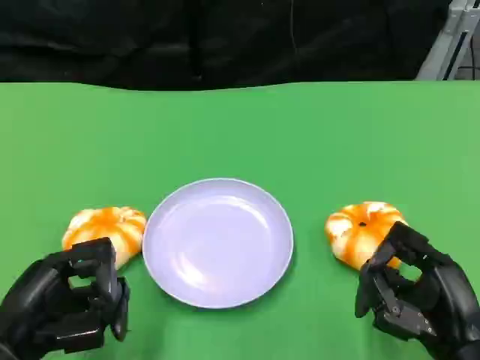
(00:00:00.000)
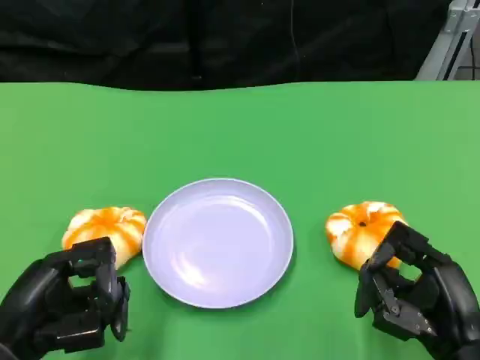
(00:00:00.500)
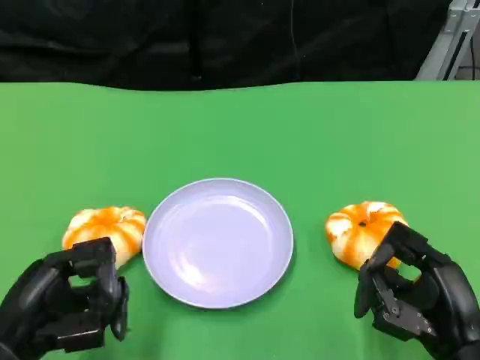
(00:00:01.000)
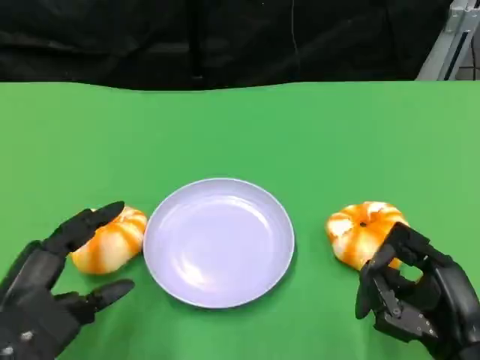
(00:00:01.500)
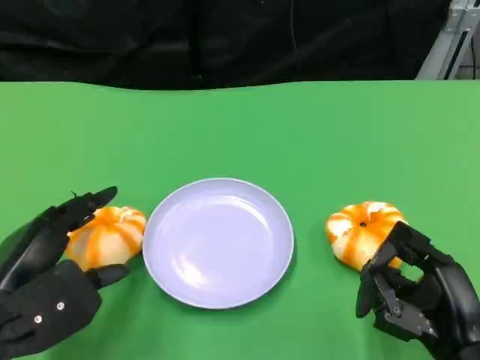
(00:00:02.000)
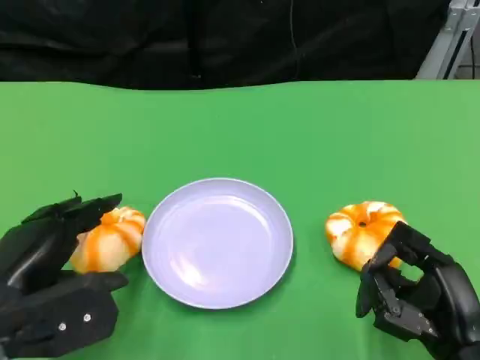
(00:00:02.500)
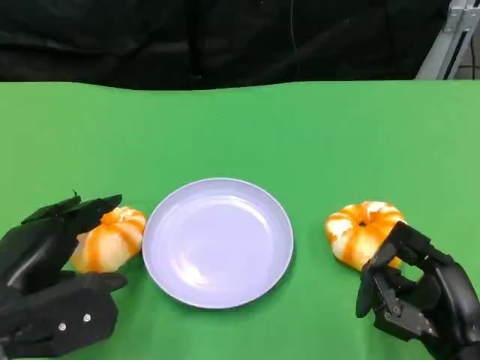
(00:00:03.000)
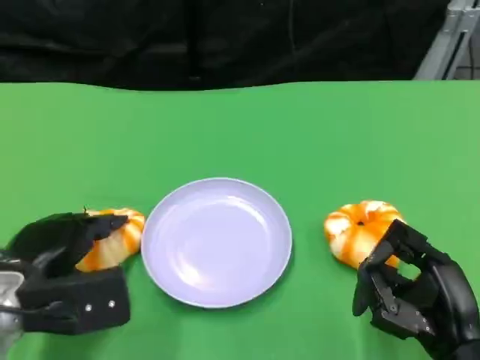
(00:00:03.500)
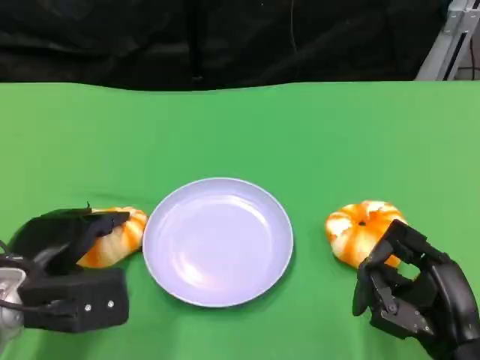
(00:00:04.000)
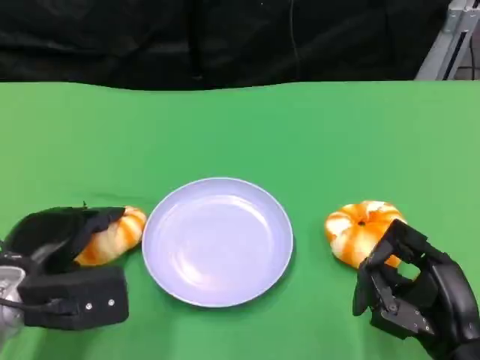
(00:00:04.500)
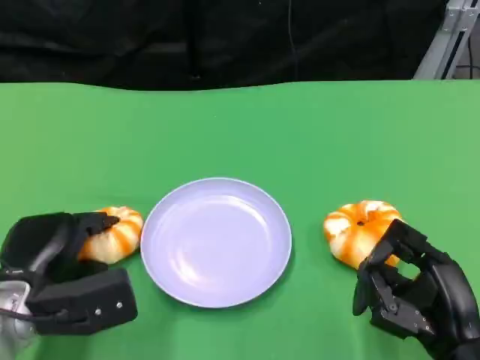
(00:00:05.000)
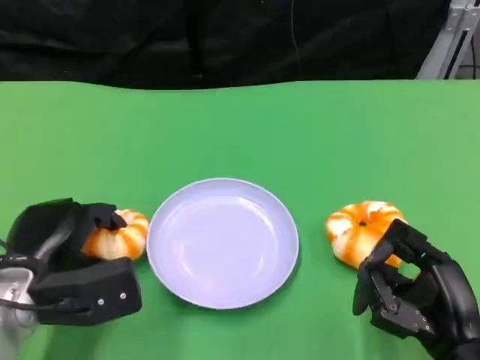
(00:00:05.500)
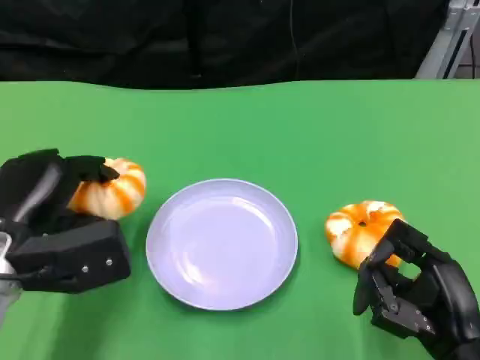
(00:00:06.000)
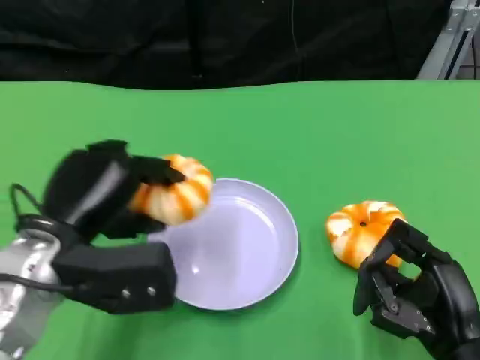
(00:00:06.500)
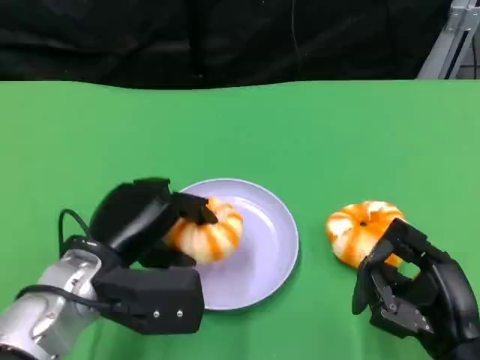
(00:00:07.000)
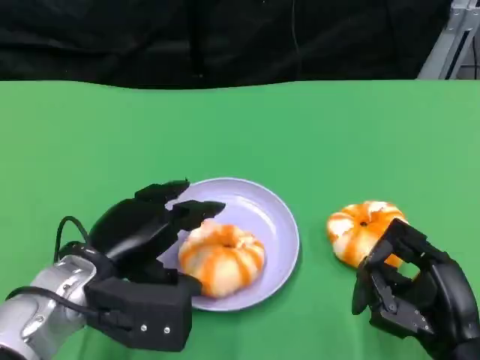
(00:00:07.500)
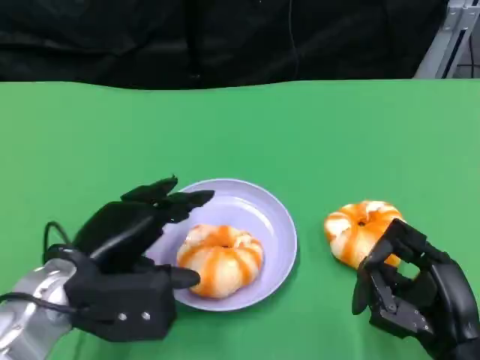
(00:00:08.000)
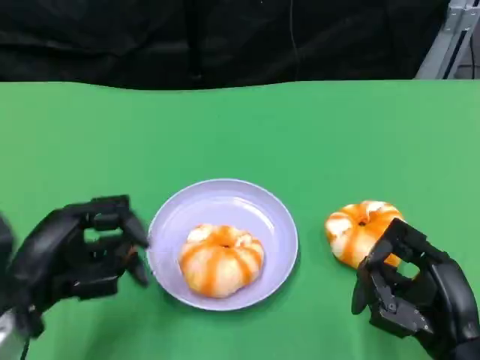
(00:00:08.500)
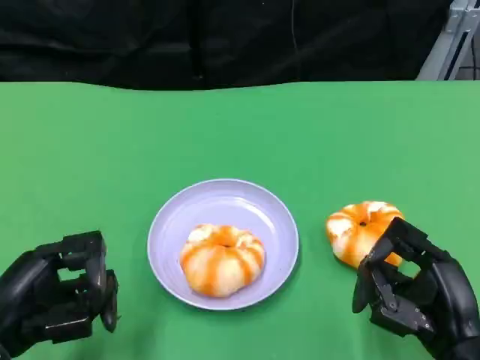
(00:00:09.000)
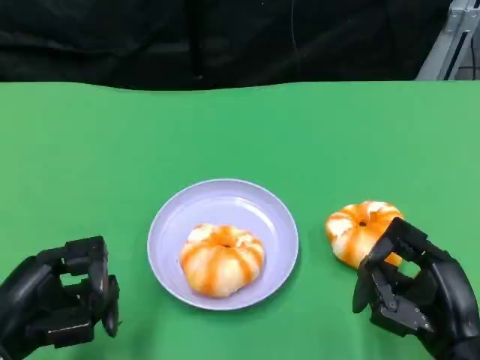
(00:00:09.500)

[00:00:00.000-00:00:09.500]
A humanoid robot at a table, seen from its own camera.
Task of the whole recording: Grasp the bread from the table and place it into the plate.
00:00:02.000 to 00:00:04.000: The left hand shifts some 5 cm forward.
00:00:04.000 to 00:00:05.500: The hands move only a little.
00:00:05.500 to 00:00:07.500: The left hand travels to the right by roughly 5 cm.
00:00:07.500 to 00:00:09.500: The left hand is displaced to the left and backward by about 10 cm.

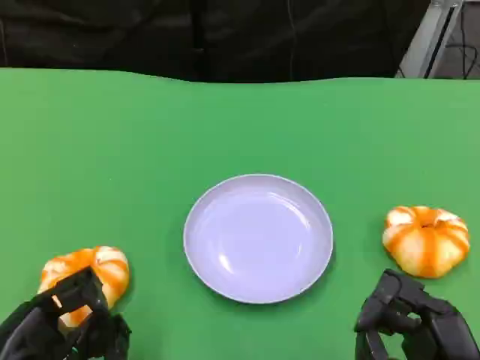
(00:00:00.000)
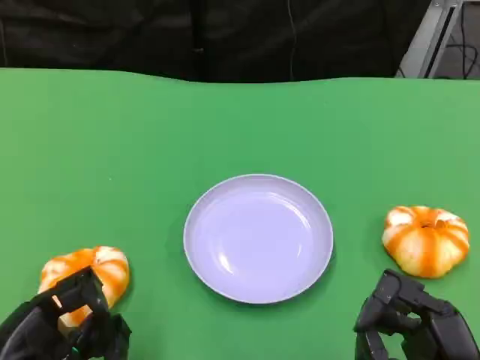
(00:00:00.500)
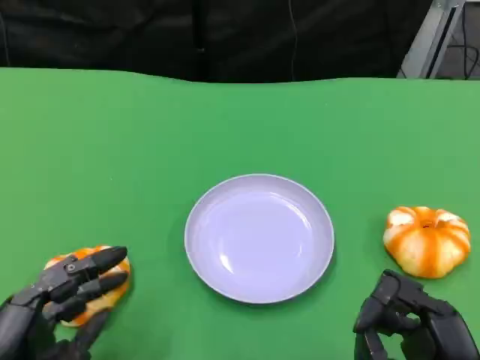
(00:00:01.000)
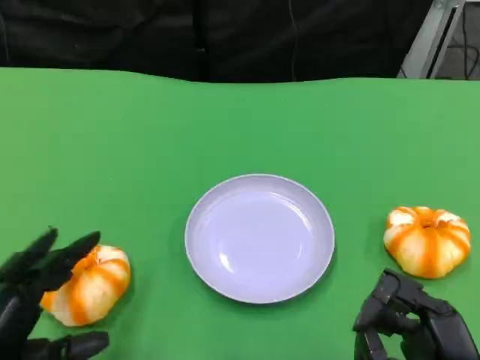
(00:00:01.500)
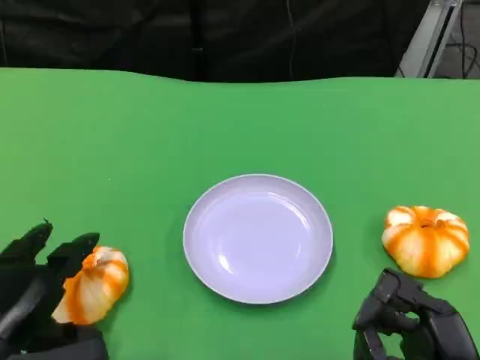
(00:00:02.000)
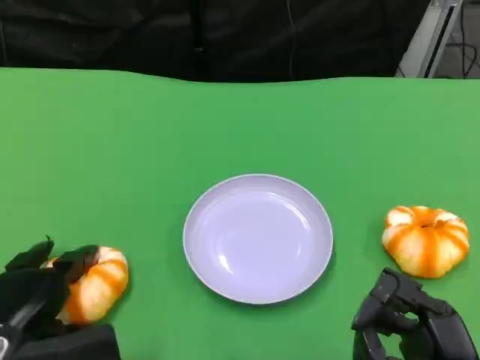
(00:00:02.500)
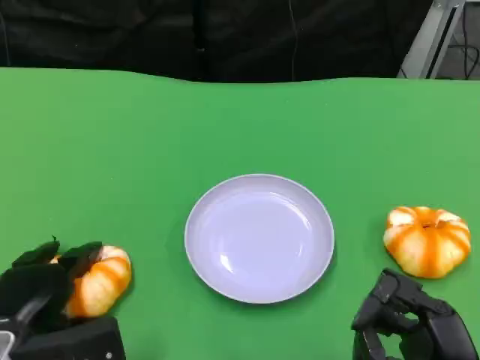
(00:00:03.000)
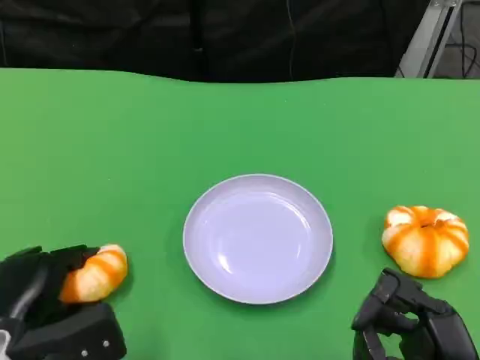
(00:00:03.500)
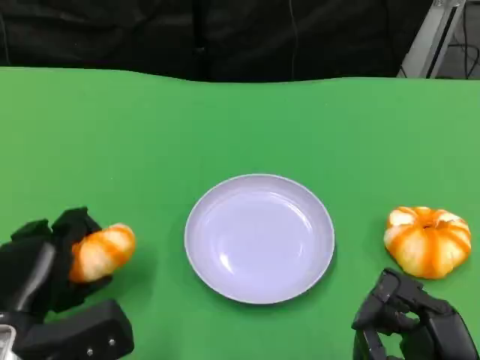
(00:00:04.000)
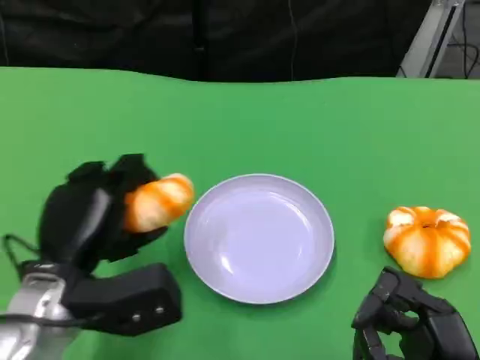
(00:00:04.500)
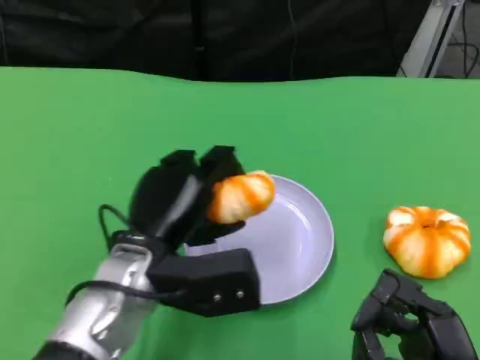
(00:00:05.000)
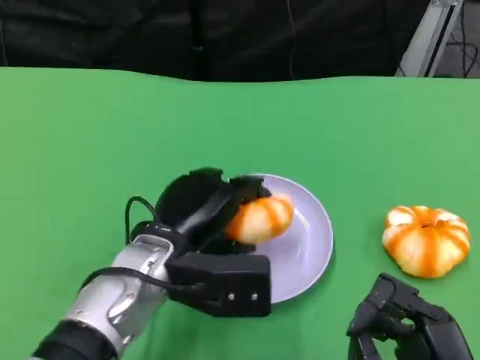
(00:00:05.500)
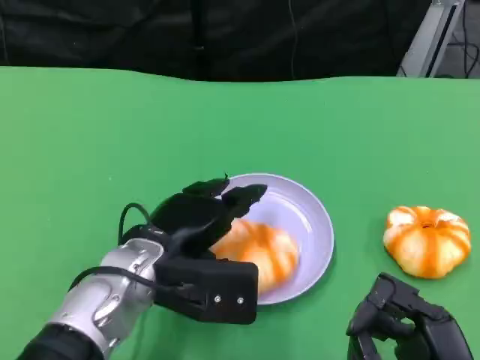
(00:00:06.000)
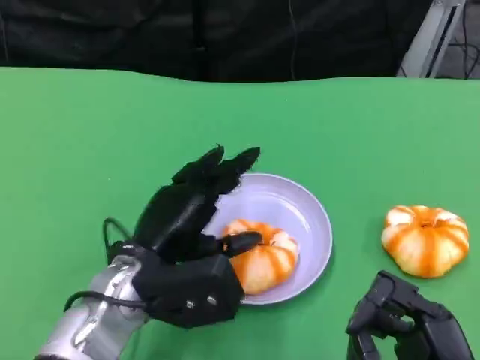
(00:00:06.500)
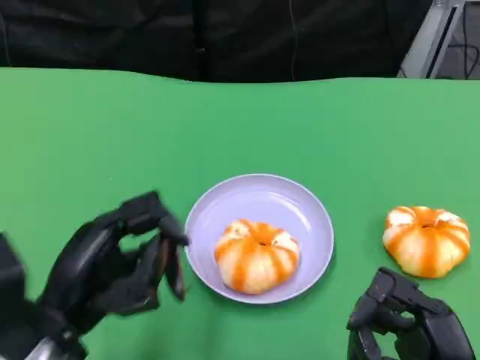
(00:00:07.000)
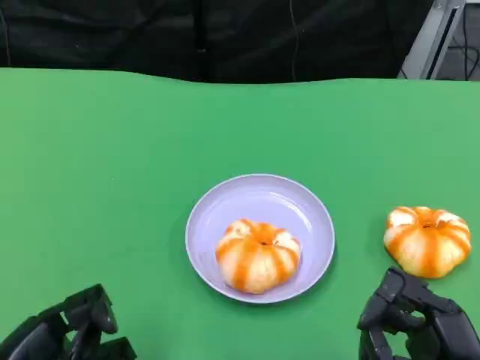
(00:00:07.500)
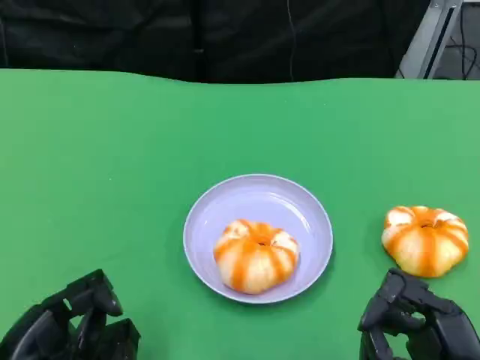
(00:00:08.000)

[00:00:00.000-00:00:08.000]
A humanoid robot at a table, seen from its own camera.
Task of the whole recording: Grasp the bread from the table and place it into the plate.
00:00:02.000 to 00:00:04.000: The hands stay close to where they were, moving slightly.
00:00:04.000 to 00:00:06.000: The left hand moves to the right and forward, roughly 15 cm.
00:00:06.000 to 00:00:08.000: The left hand heads to the left and backward, covering approximately 20 cm.

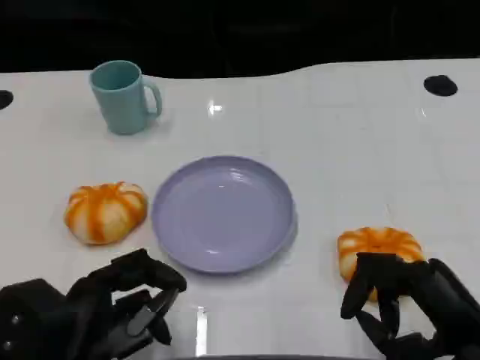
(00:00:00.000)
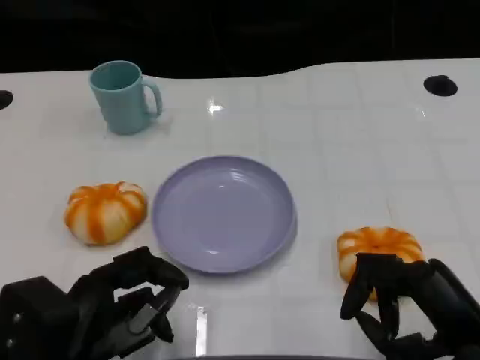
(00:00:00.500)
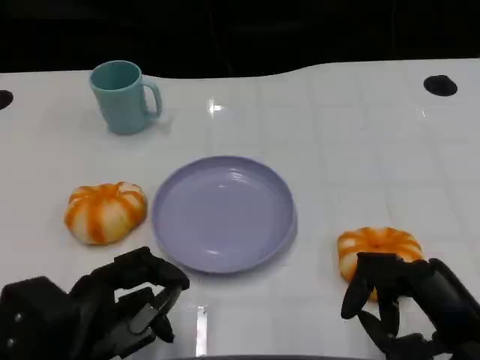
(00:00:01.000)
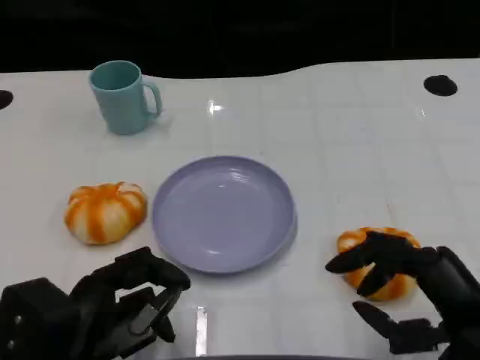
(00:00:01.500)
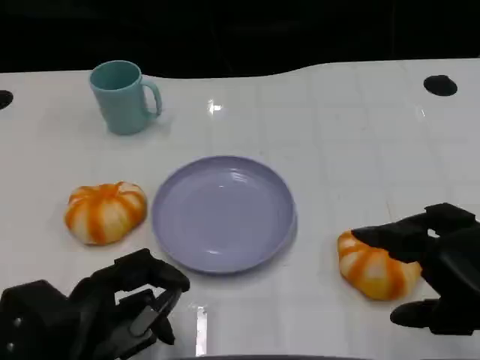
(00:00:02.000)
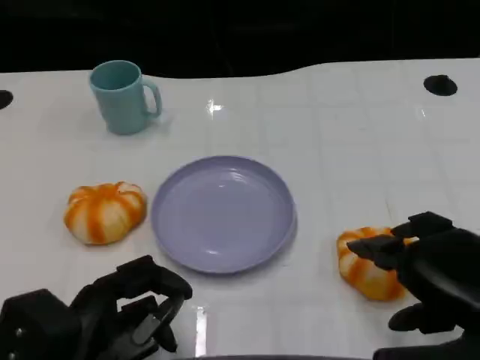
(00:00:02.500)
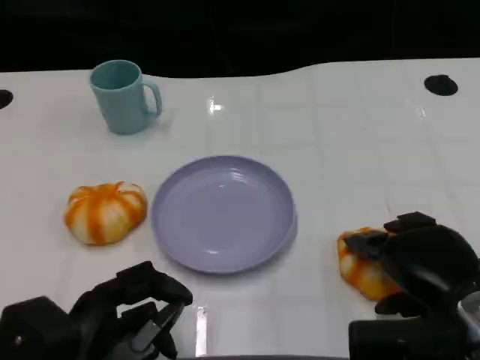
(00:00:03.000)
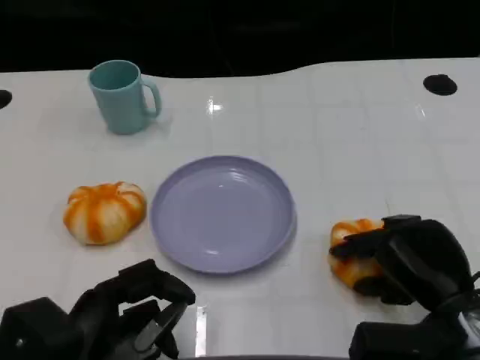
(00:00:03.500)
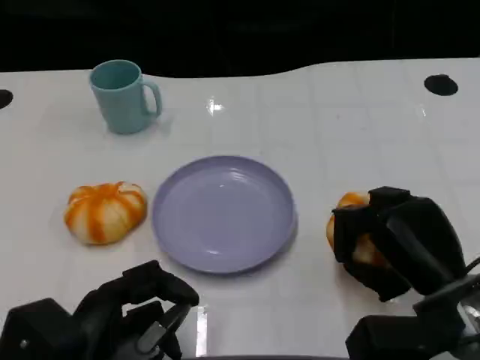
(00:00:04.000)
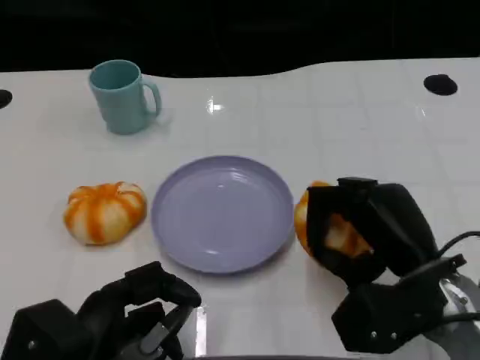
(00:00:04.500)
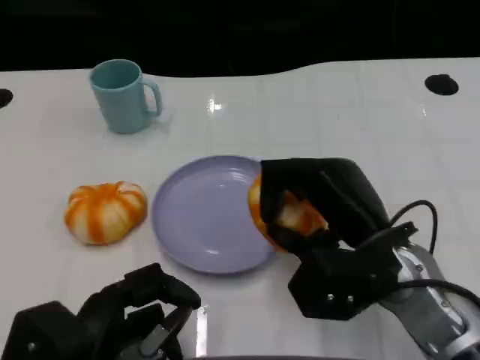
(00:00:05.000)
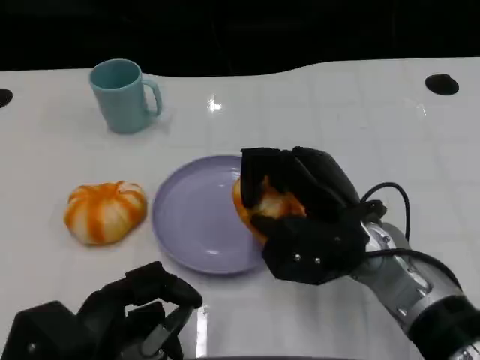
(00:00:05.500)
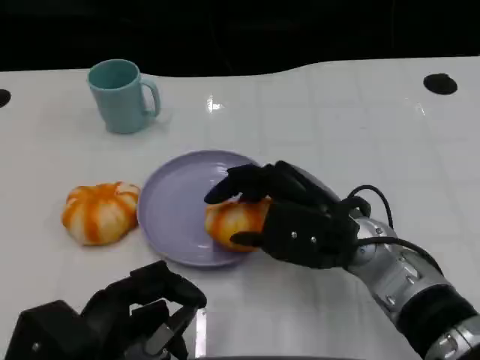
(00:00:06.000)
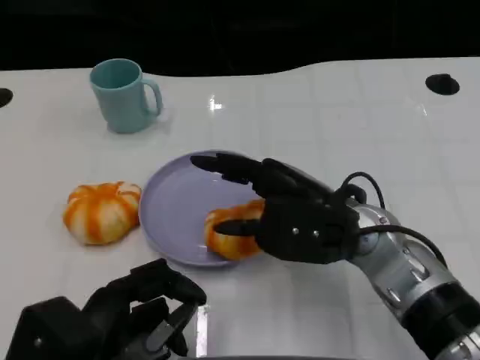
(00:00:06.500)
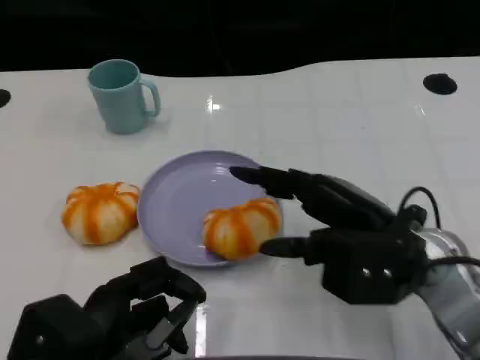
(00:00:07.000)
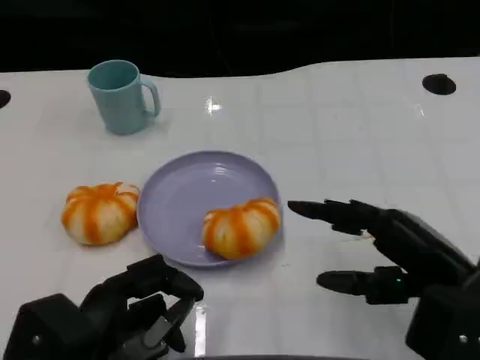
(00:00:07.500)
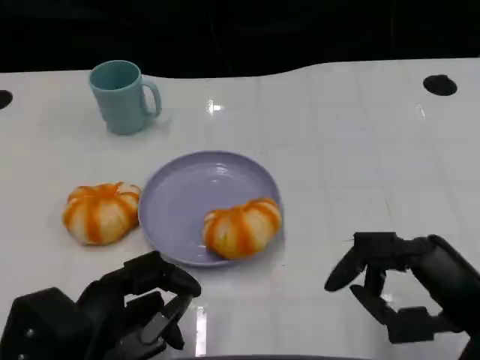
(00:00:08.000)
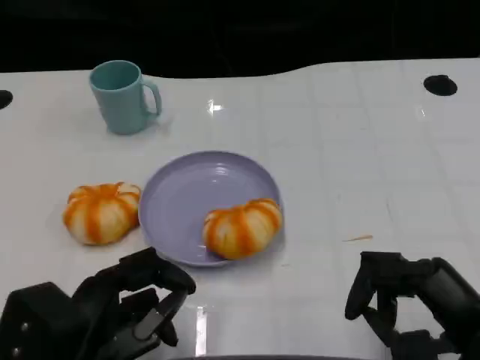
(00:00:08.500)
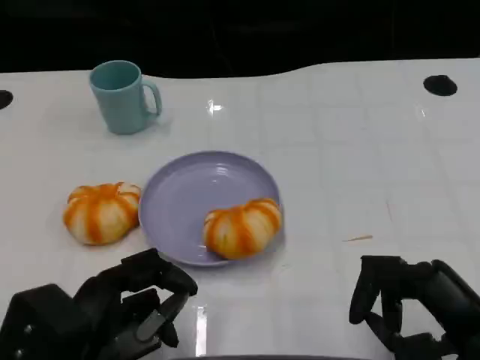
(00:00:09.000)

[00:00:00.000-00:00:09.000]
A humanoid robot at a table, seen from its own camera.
Task of the whole recording: Grasp the bread from the table and place it into the plate.
00:00:00.000 to 00:00:02.000: The right hand travels upward by some 5 cm.
00:00:02.000 to 00:00:04.500: The right hand heads forward, to the left and downward, covering roughly 10 cm.
00:00:07.000 to 00:00:09.000: The right hand shifts roughly 10 cm backward and to the right.
